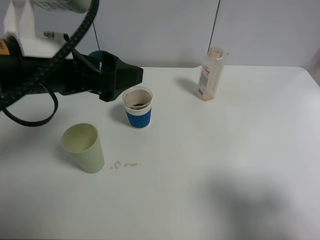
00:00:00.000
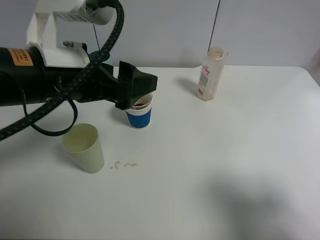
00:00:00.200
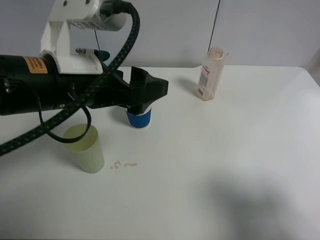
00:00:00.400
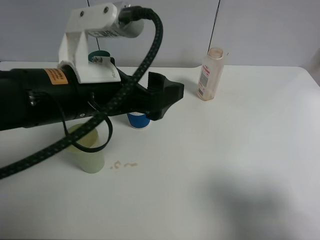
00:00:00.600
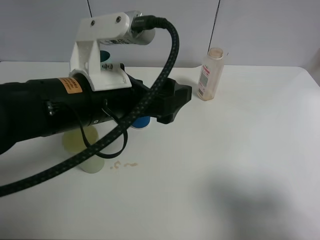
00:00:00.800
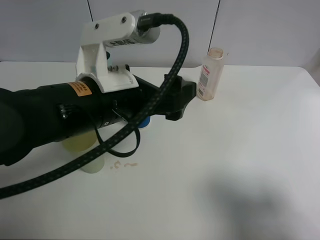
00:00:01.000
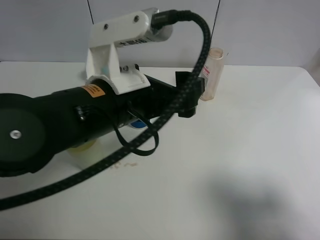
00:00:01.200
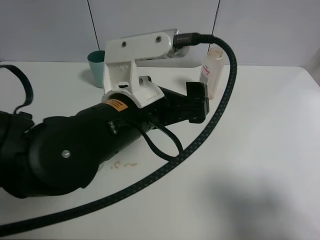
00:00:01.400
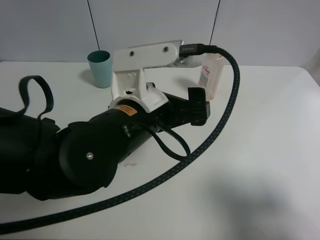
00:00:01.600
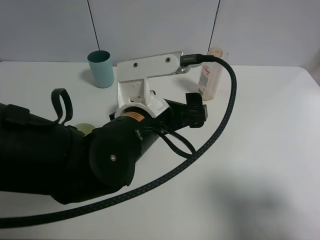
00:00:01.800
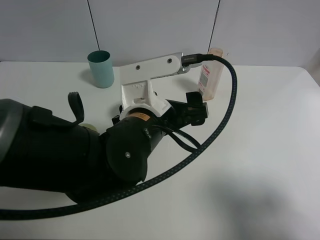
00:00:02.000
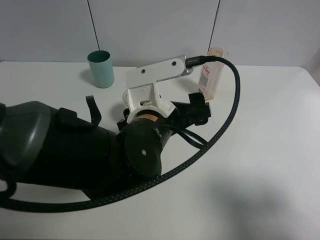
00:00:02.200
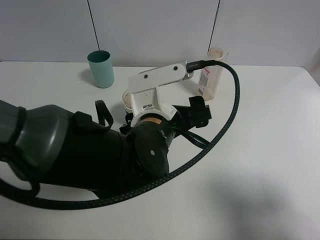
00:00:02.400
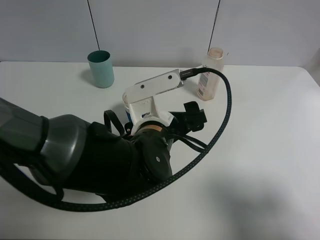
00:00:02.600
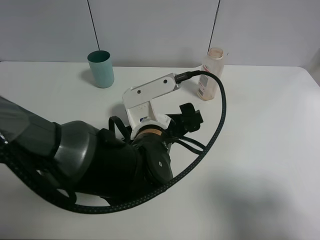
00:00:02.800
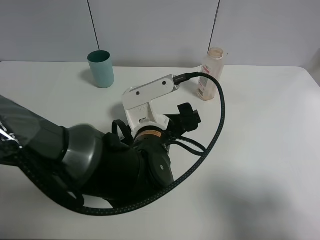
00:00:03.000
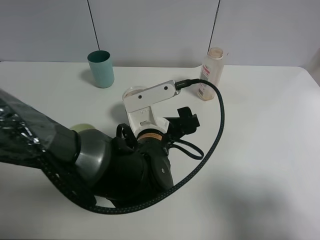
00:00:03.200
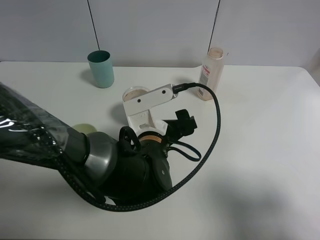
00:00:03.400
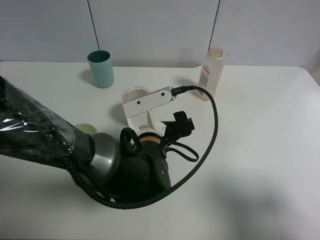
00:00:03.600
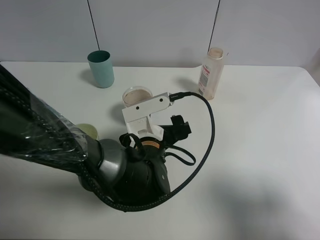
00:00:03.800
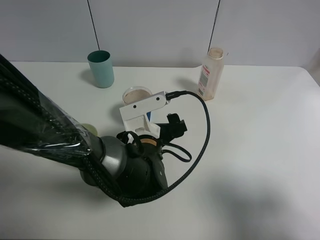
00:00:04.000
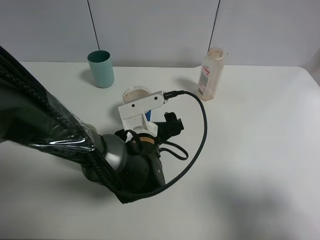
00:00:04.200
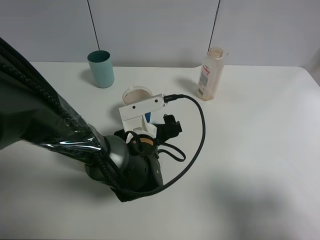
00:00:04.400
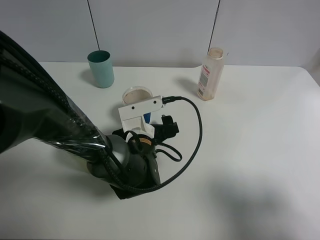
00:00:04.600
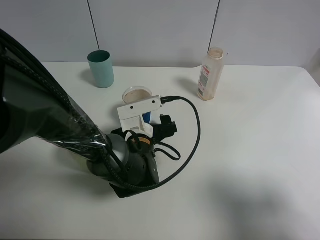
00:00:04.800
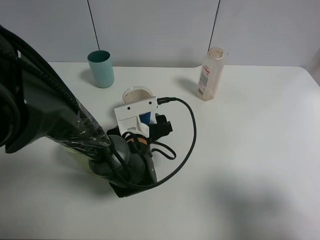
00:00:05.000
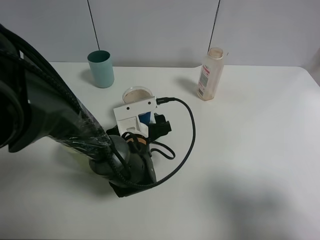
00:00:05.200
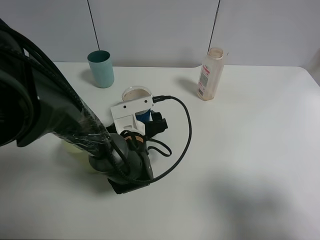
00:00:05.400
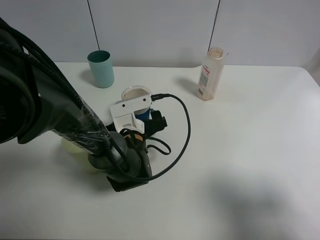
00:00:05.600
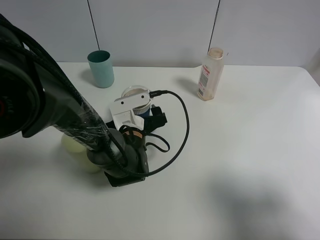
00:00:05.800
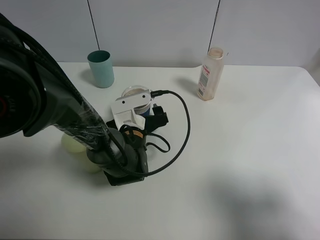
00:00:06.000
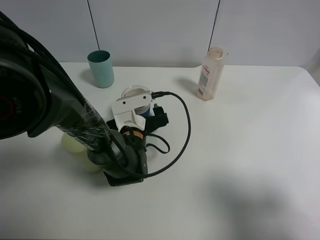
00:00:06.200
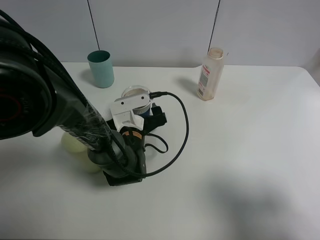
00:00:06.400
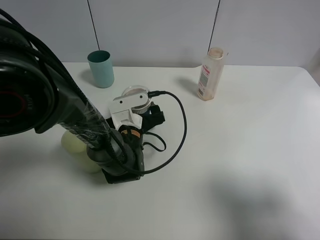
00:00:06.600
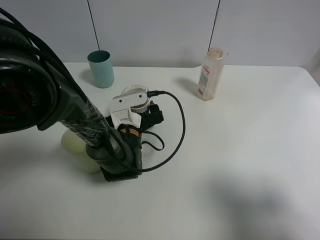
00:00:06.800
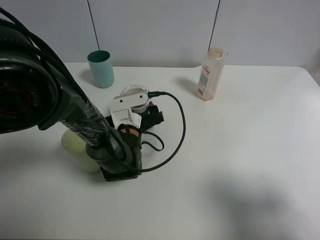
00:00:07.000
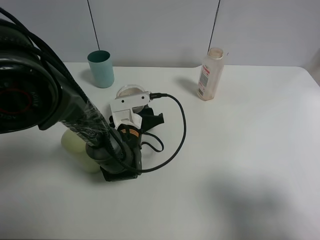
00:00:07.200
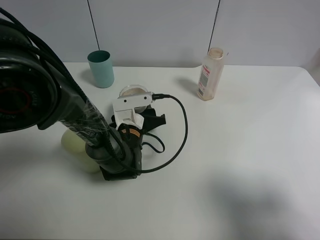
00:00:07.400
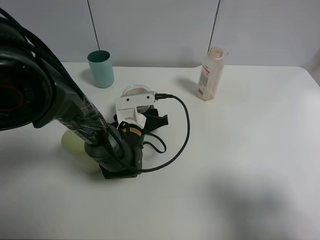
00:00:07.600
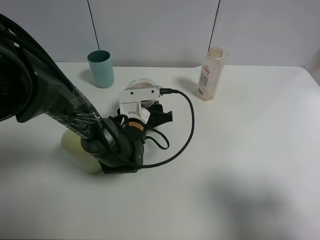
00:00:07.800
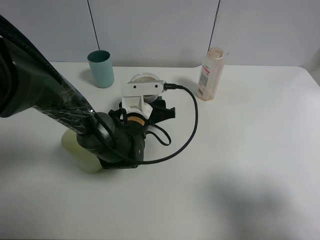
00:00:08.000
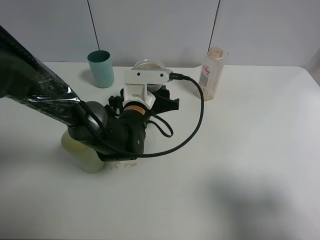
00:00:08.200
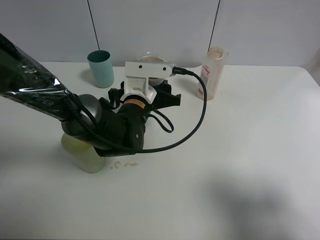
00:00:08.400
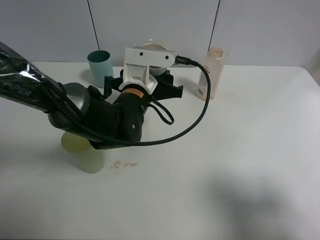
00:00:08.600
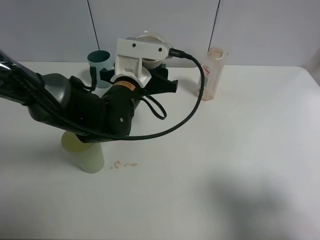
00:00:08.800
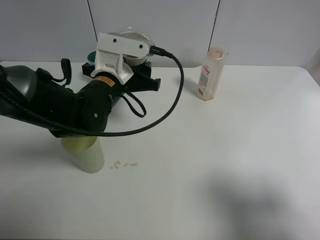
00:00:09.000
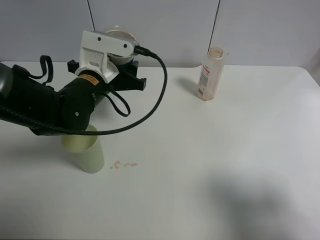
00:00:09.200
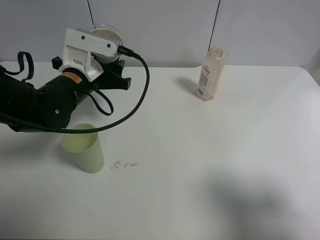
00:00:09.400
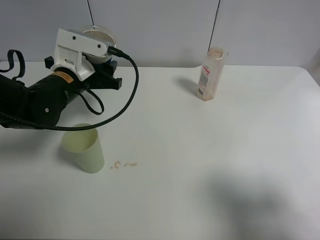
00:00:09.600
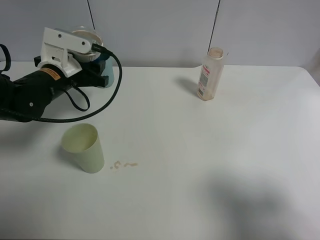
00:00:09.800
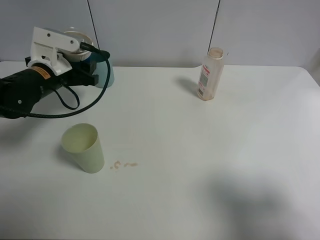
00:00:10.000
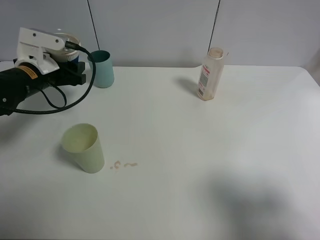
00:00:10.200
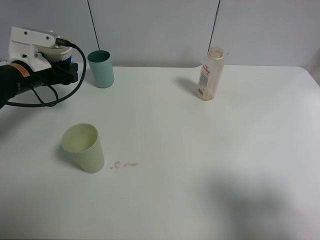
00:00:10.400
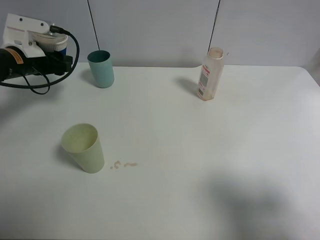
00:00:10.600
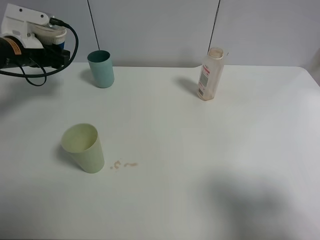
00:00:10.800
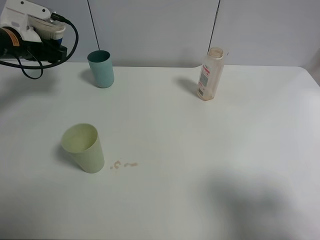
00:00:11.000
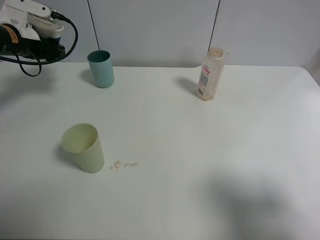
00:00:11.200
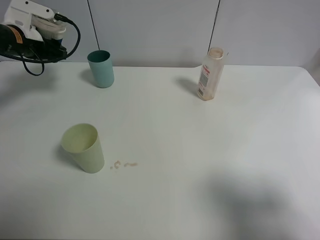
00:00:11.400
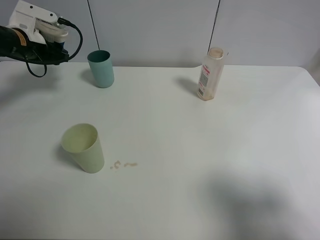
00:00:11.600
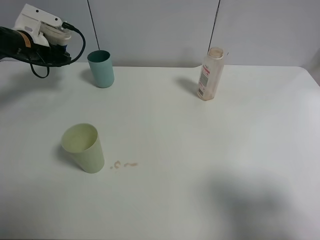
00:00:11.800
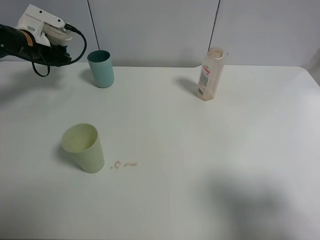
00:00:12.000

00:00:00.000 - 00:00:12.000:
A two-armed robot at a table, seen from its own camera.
Task of the whole recording: use a clamp to hold the bottle of the drink, pour the beverage into a random cup, then clamp the cup containing the drink and pour the drink into another random cup.
Step, 00:00:00.000 - 00:00:07.800: Pick up the paper cup with left gripper.
00:00:00.000 - 00:00:01.600: The left gripper moves to the right and downward, about 15 cm.
00:00:01.600 - 00:00:03.000: The left gripper shifts roughly 5 cm downward.
00:00:03.000 - 00:00:04.400: The left gripper moves downward, roughly 5 cm.
00:00:04.400 - 00:00:06.000: The left gripper changes place by about 5 cm.
00:00:06.000 - 00:00:07.600: The left gripper closes its fingers.
00:00:07.600 - 00:00:09.000: The left gripper travels upward by approximately 15 cm.
00:00:09.000 - 00:00:10.400: The left gripper shifts approximately 20 cm to the left.
00:00:10.400 - 00:00:12.000: The left gripper goes roughly 10 cm forward.

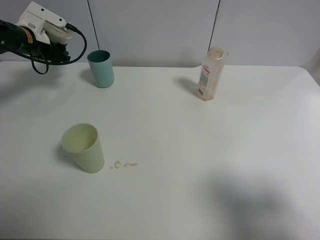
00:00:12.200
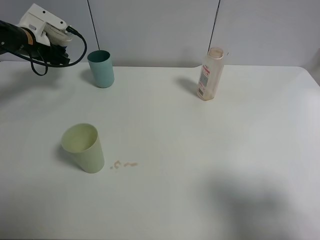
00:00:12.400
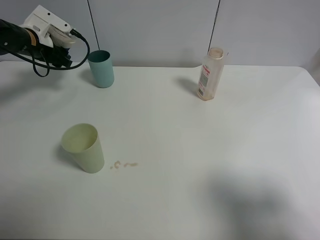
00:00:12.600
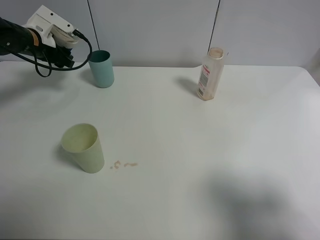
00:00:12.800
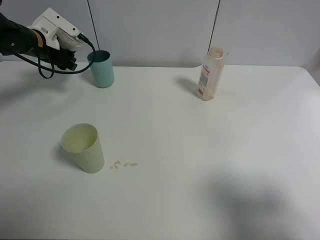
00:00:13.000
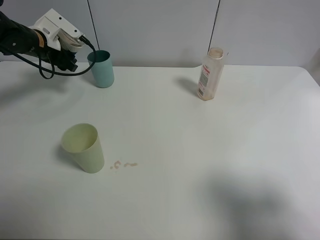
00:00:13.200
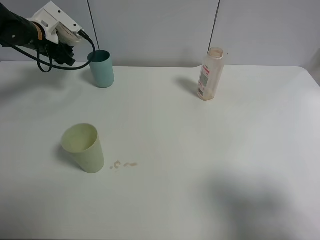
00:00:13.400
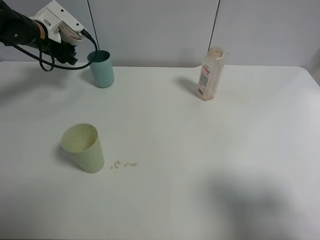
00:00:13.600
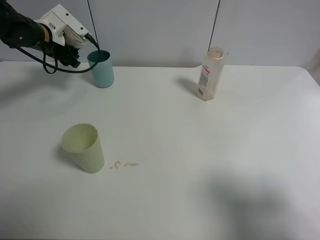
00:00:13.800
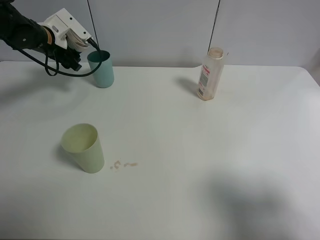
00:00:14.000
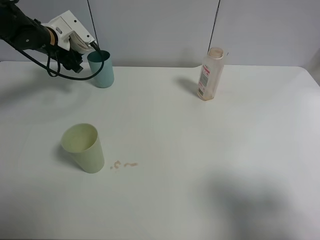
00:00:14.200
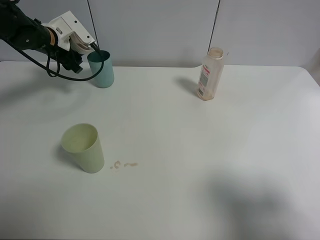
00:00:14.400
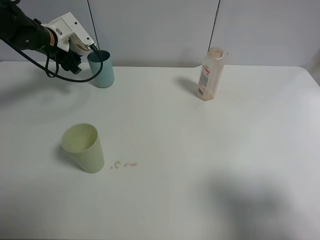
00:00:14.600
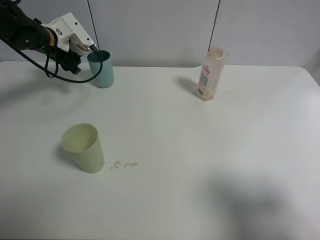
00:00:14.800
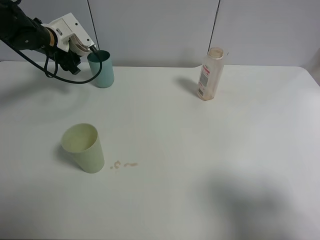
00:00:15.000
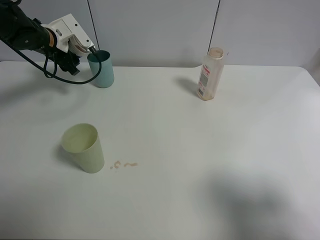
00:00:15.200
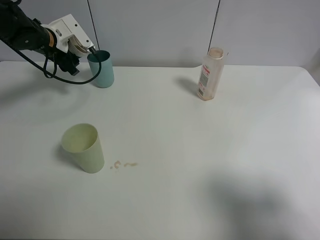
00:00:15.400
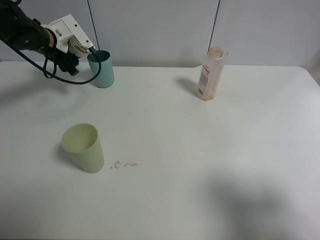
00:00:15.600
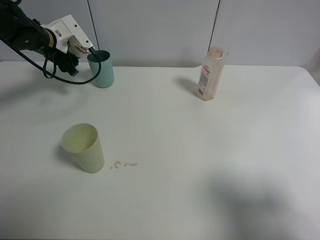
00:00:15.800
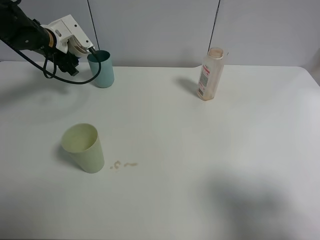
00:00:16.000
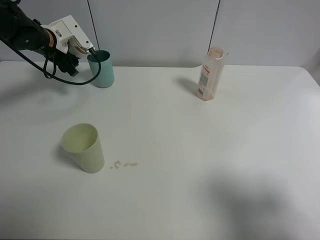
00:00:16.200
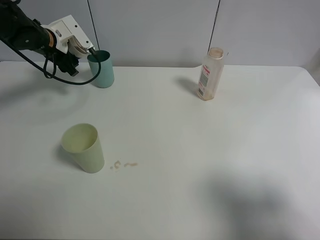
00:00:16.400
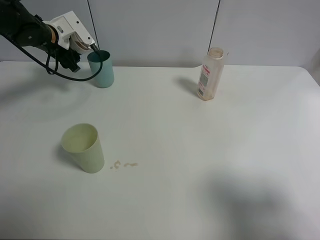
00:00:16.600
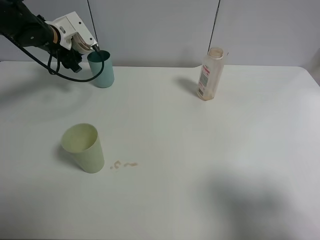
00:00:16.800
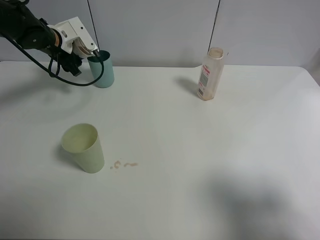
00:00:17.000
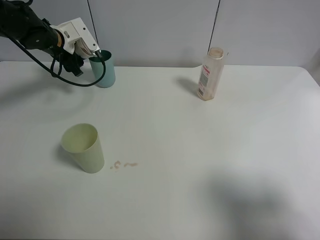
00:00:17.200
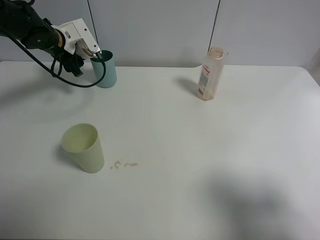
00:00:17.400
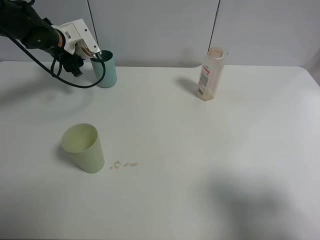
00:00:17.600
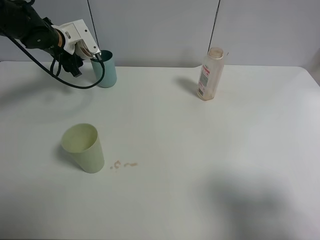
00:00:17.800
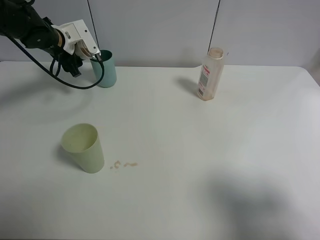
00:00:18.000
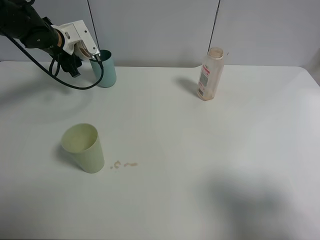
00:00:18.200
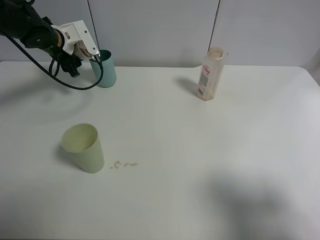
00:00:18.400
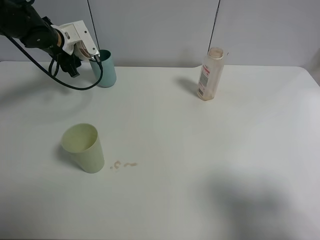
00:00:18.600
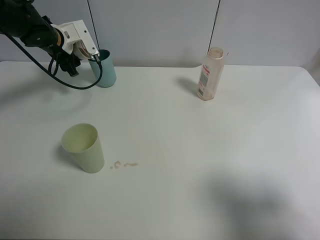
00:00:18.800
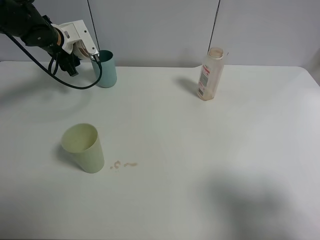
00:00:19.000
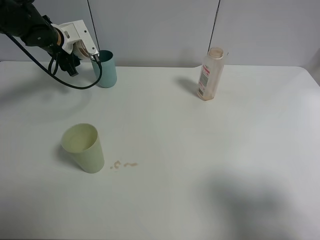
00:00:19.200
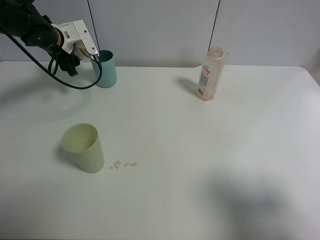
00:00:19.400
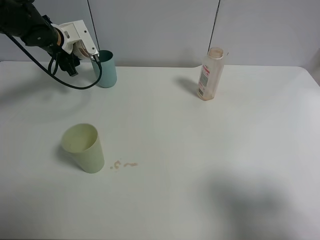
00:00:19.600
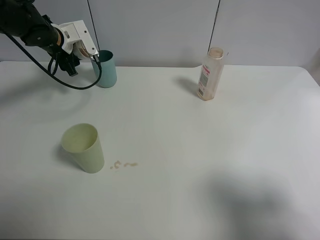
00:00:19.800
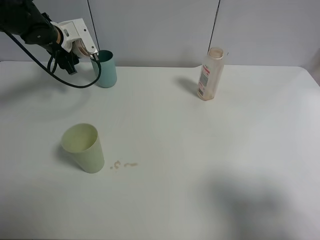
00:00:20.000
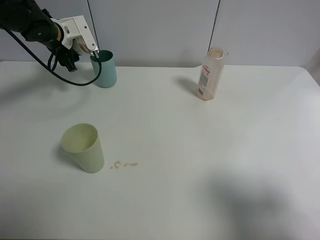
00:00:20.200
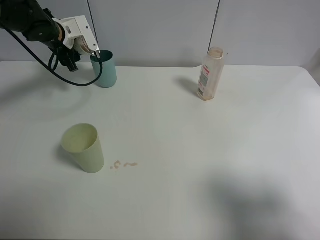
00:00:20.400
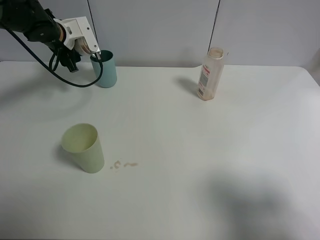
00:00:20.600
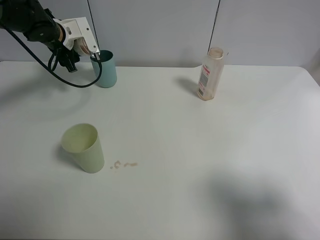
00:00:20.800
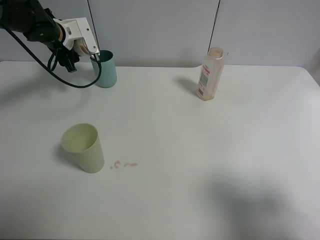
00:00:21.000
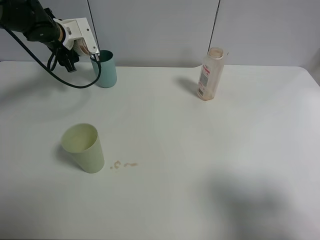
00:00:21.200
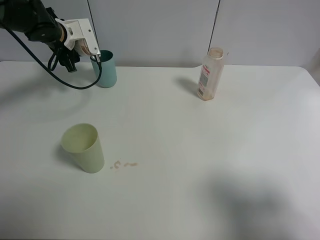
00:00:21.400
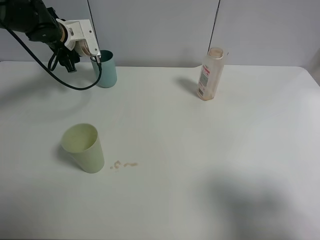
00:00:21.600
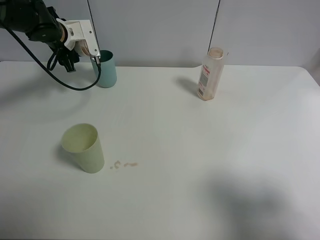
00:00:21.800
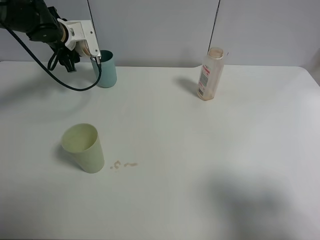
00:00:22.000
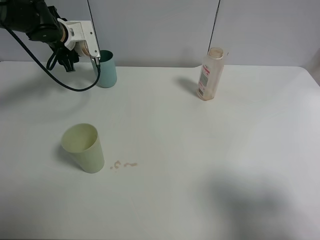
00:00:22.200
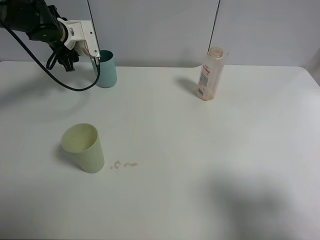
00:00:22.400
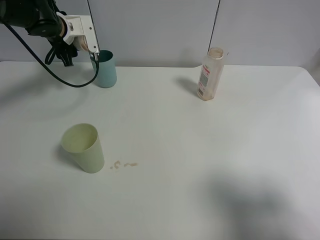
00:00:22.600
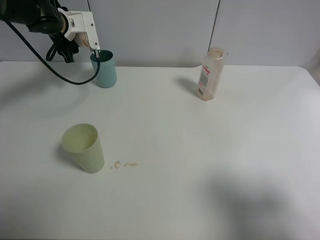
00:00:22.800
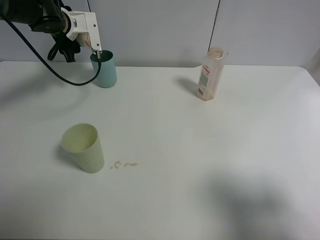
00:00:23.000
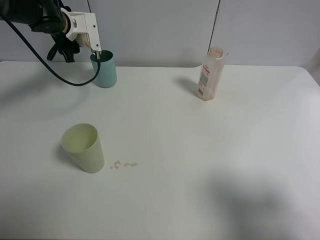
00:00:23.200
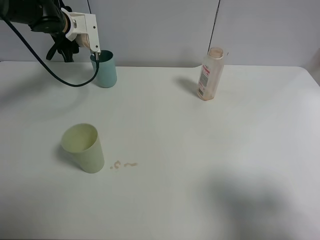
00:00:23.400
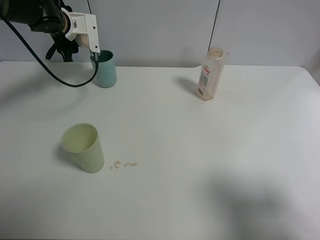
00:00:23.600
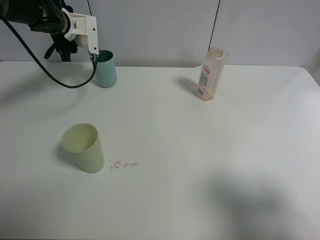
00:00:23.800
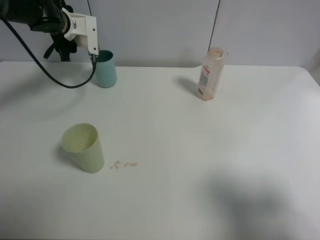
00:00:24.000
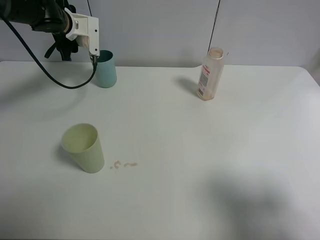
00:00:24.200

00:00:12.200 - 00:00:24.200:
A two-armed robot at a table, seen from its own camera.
Task of the whole recording: use a clamp to hold the bottle of the drink, pour the beverage into a random cup, then clamp the cup containing the drink and pour the drink into another random cup.
00:00:12.200 - 00:00:13.800: The grippers make only small movements.
00:00:13.800 - 00:00:15.200: The grippers move only a little.
00:00:15.200 - 00:00:16.600: Neither gripper changes place.
00:00:16.600 - 00:00:18.200: The grippers move only a little.
00:00:18.200 - 00:00:19.800: The two grippers keep their place.
00:00:19.800 - 00:00:22.600: There are only small adjustments of the grippers.
00:00:22.600 - 00:00:24.200: The grippers move only a little.
